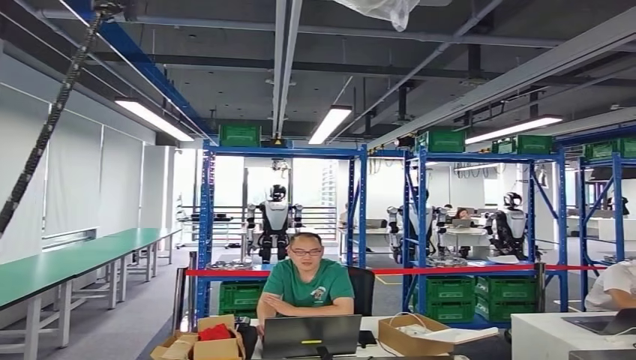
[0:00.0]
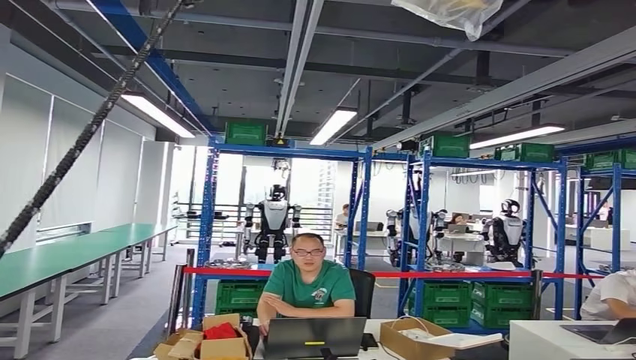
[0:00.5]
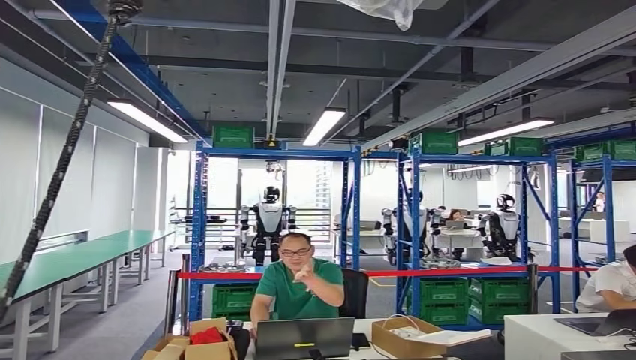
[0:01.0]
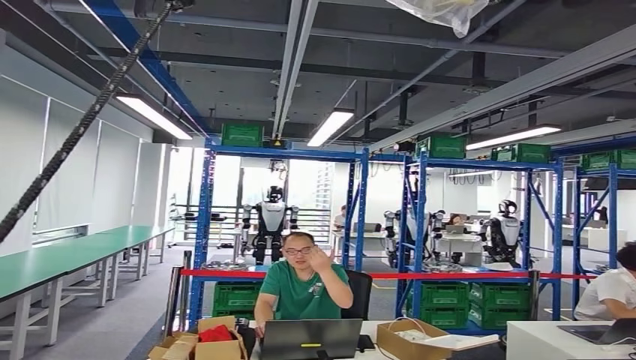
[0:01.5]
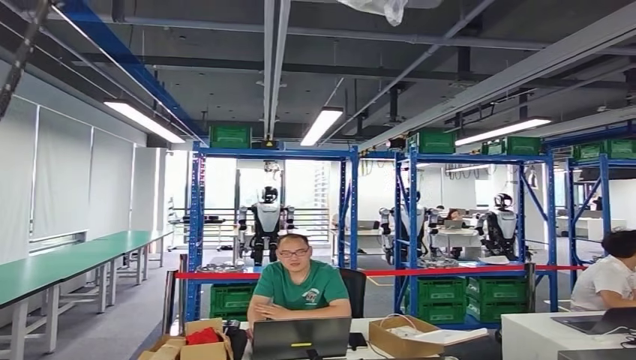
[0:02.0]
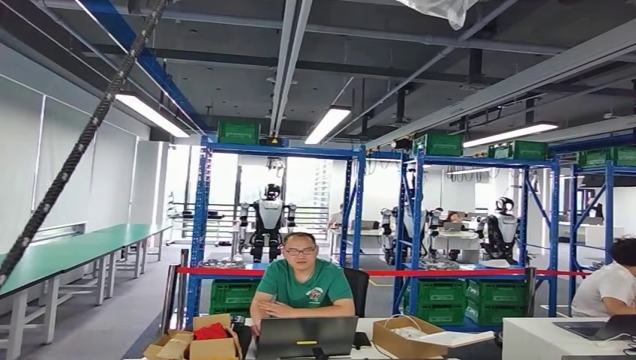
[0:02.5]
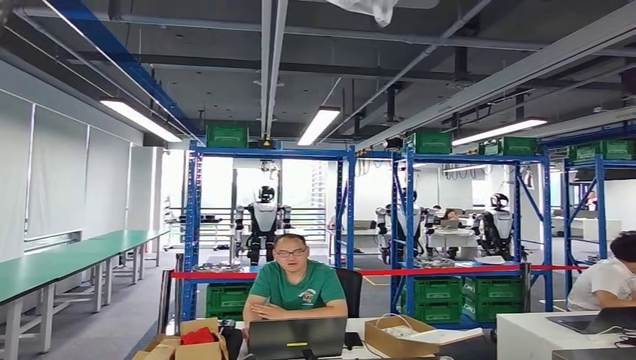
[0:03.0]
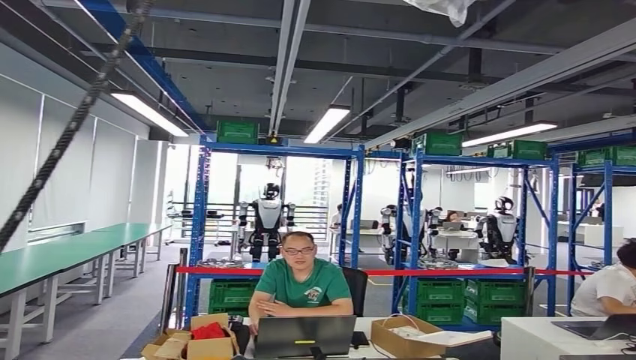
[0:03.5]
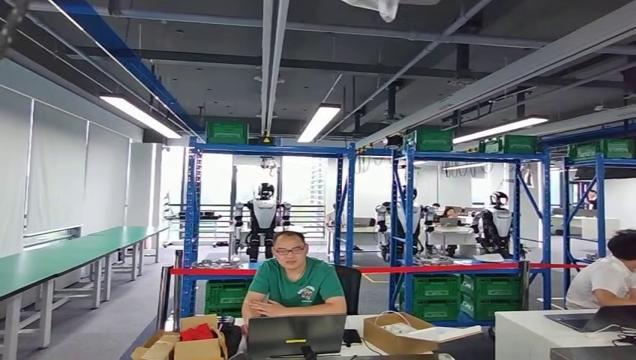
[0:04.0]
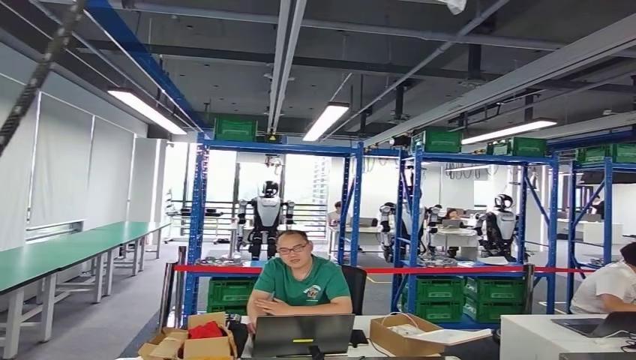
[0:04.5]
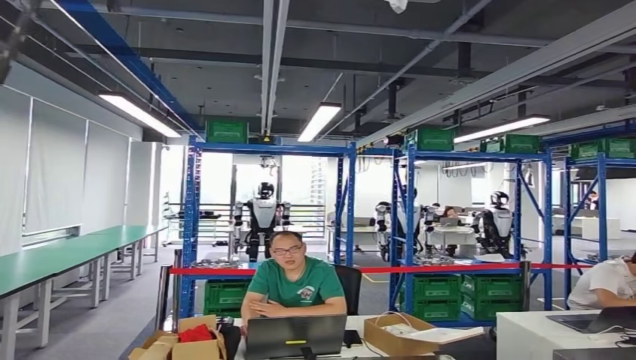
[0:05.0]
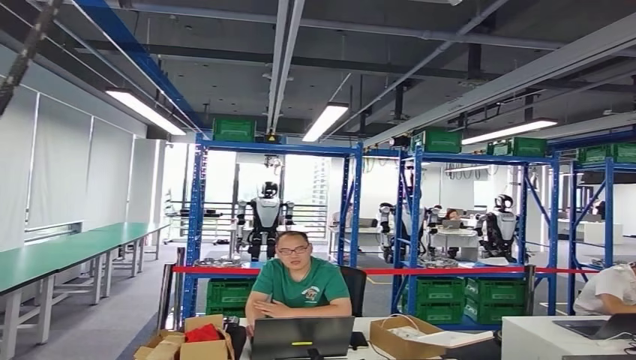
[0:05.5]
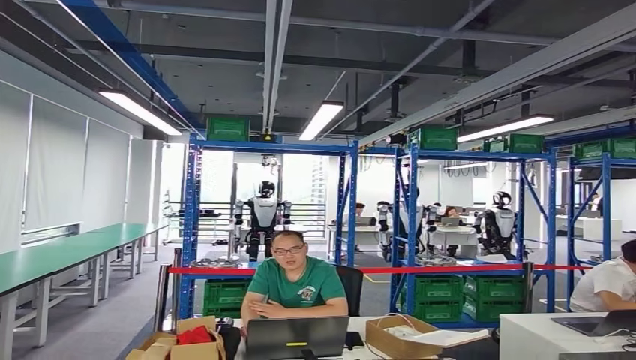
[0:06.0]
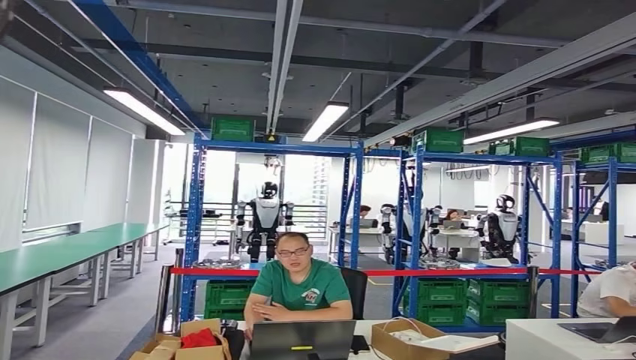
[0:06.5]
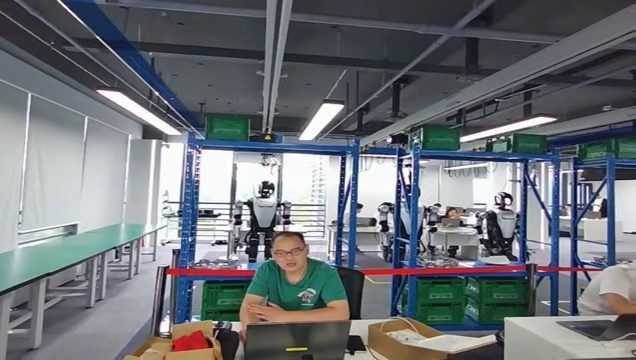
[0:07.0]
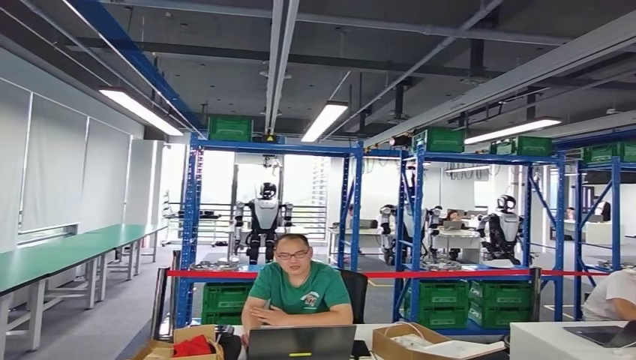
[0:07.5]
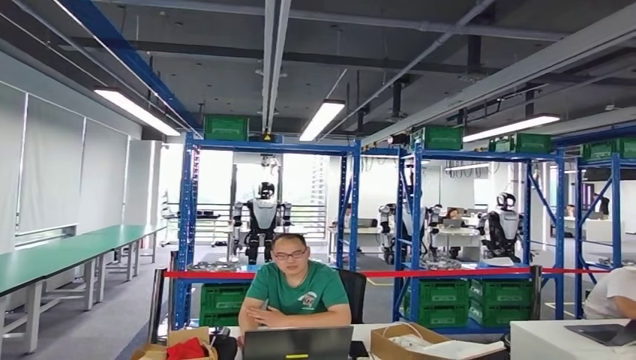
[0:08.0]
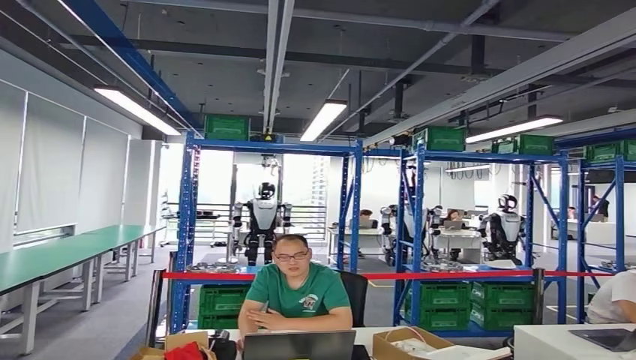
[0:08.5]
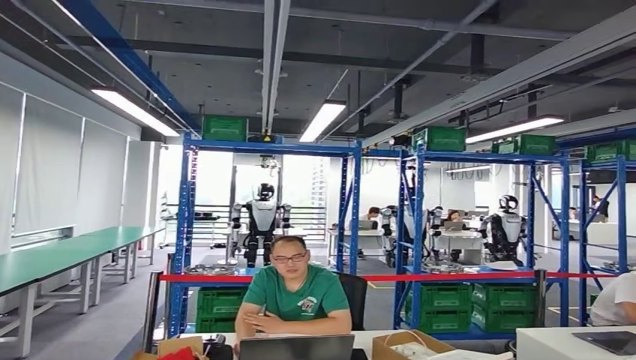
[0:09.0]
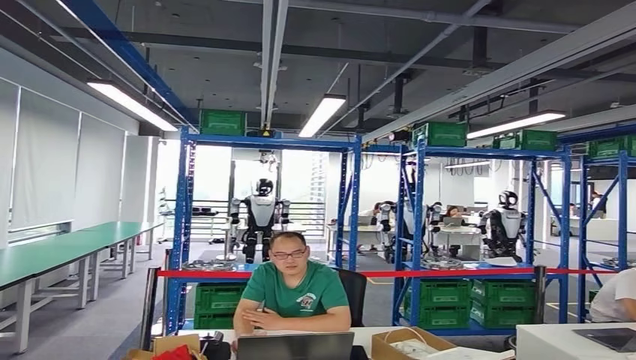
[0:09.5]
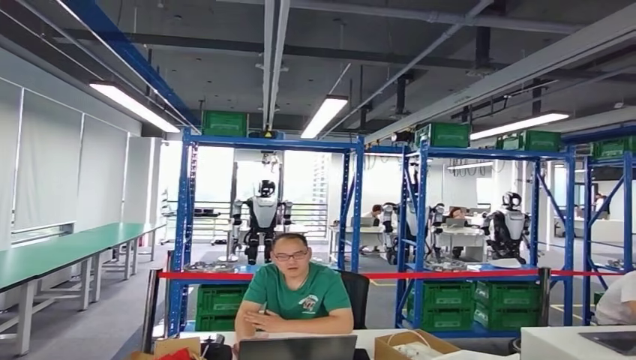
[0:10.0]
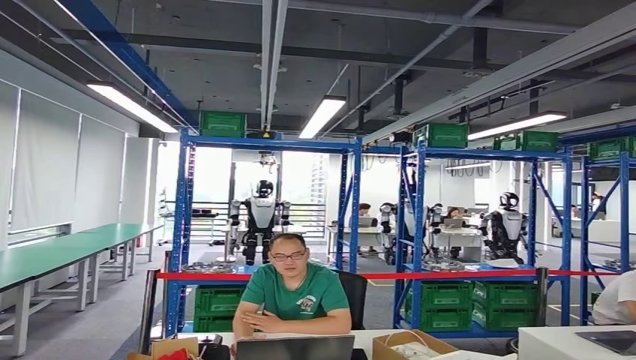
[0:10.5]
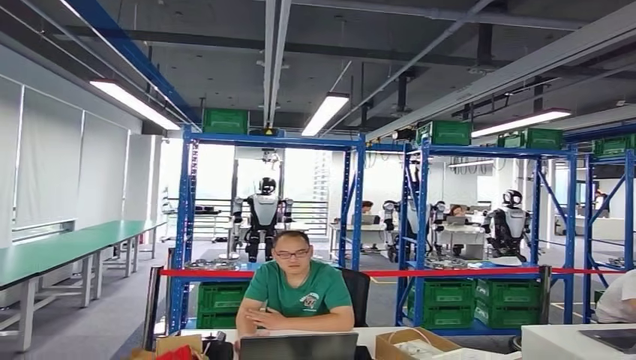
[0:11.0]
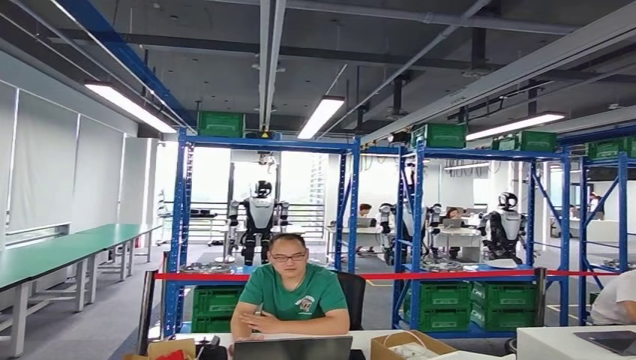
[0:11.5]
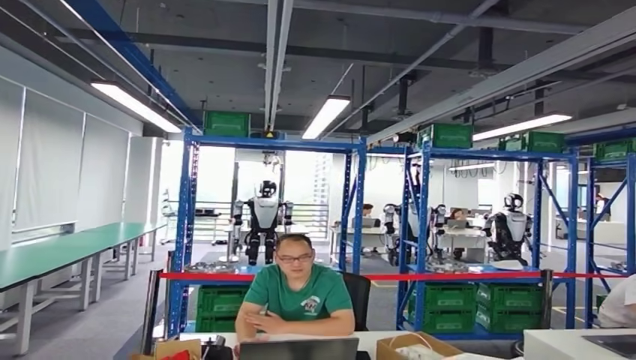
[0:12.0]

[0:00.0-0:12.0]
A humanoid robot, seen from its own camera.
0:10.0 to 0:12.0: The right hand goes approximately 15 cm forward, to the right and downward.

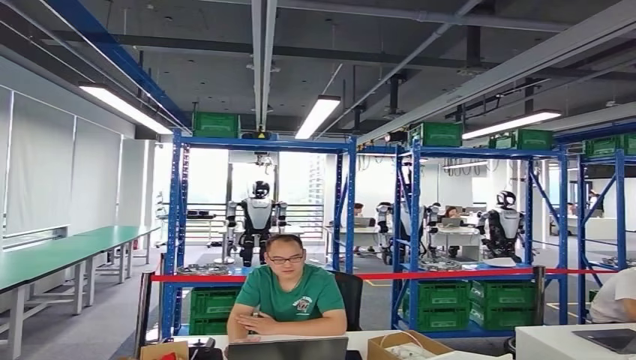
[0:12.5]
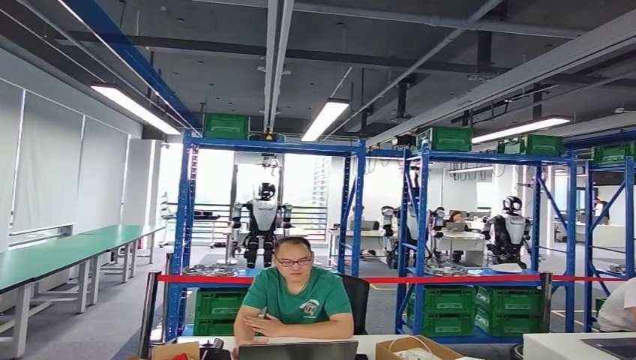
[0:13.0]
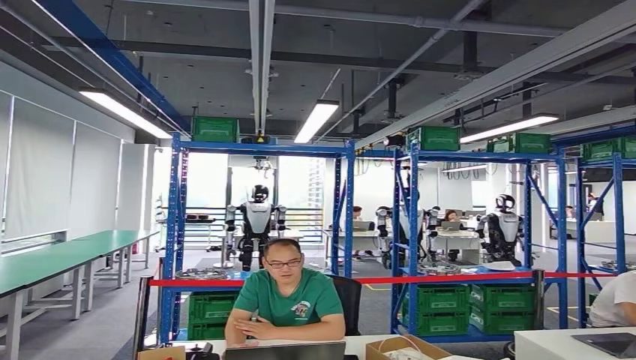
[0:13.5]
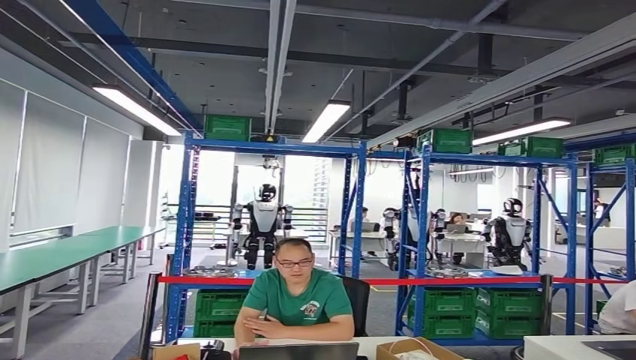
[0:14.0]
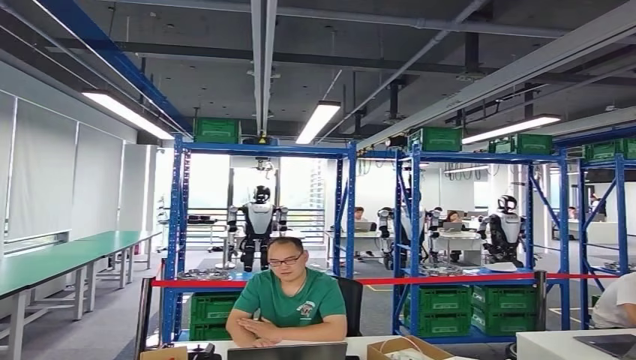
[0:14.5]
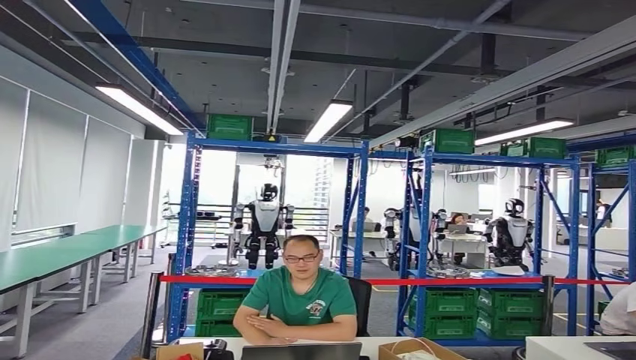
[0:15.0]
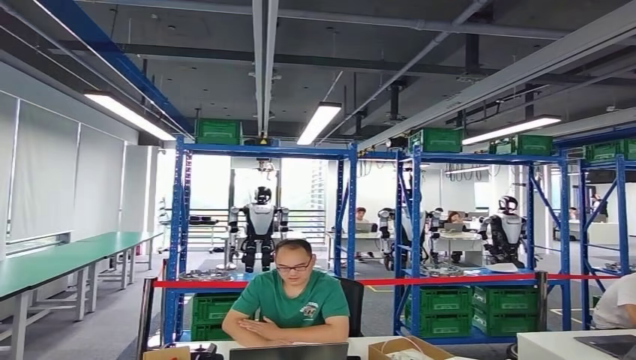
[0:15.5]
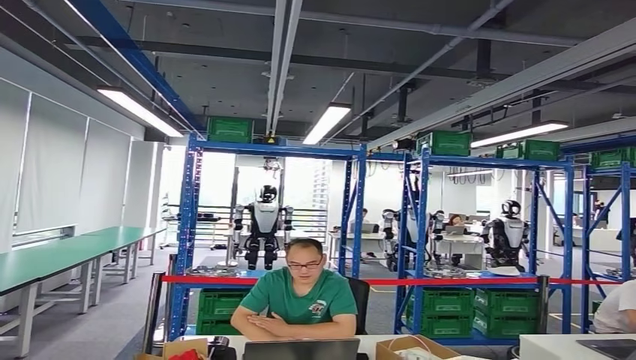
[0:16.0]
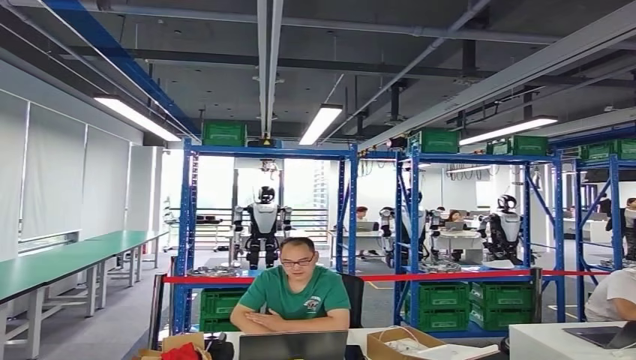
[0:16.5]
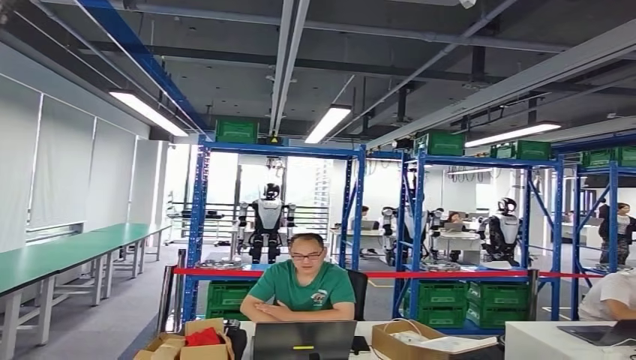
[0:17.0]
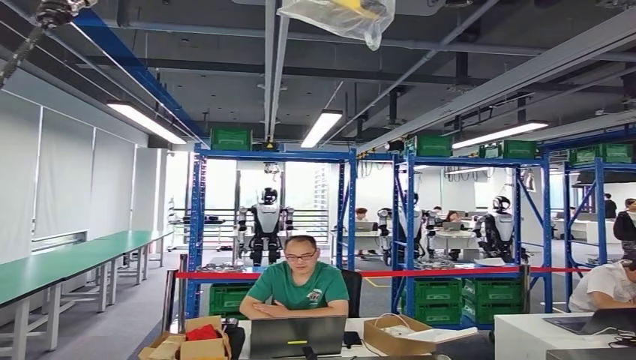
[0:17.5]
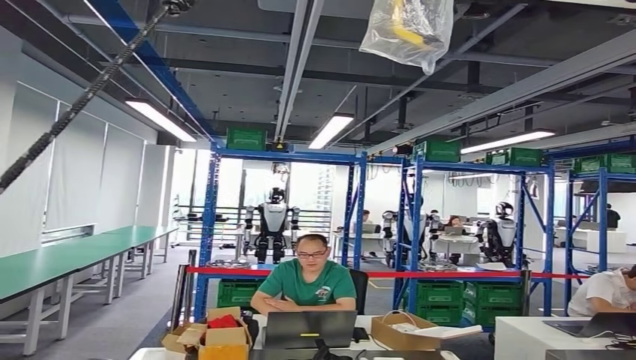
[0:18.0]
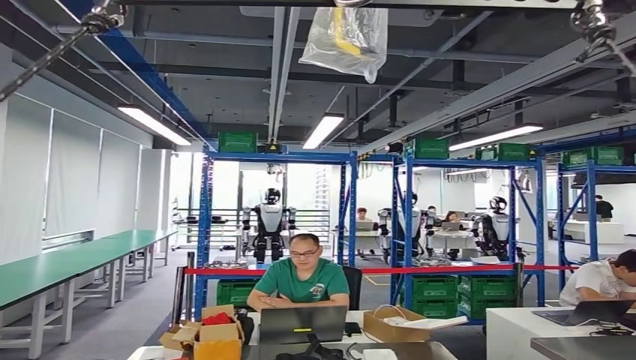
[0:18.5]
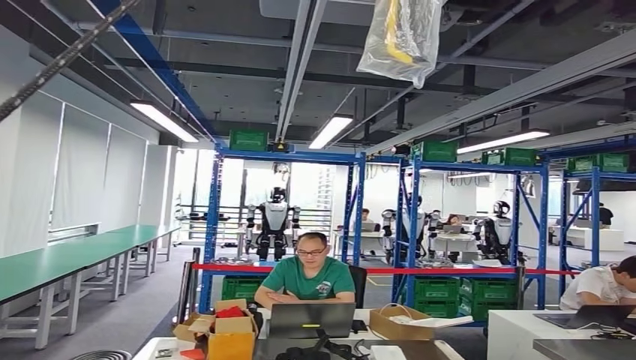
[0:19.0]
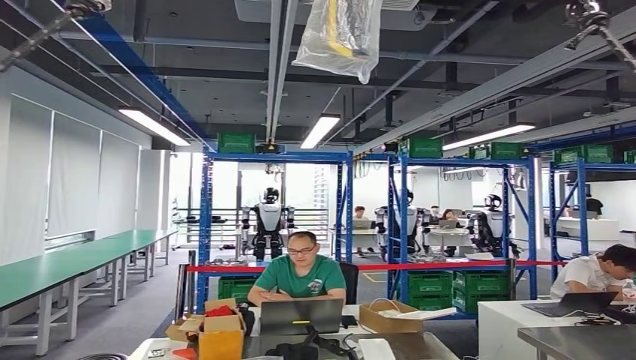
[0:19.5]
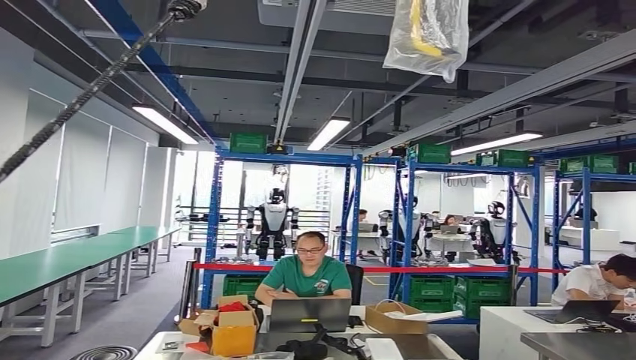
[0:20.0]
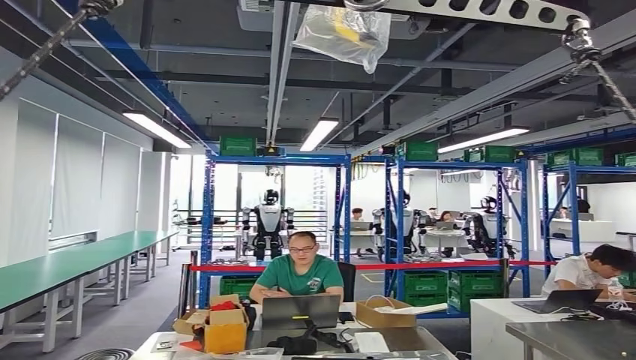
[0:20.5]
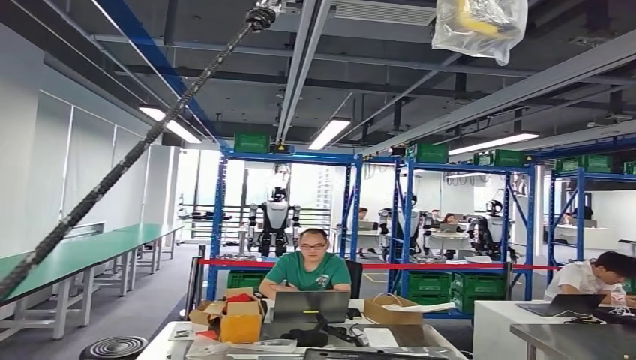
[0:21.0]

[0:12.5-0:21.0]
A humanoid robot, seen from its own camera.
Step, 0:12.5 to 0:16.5: Insert the small component into the corresponding slot on the workbench.
